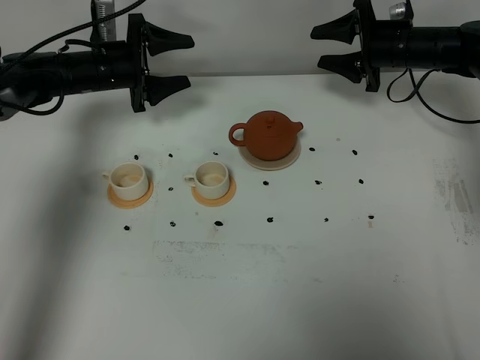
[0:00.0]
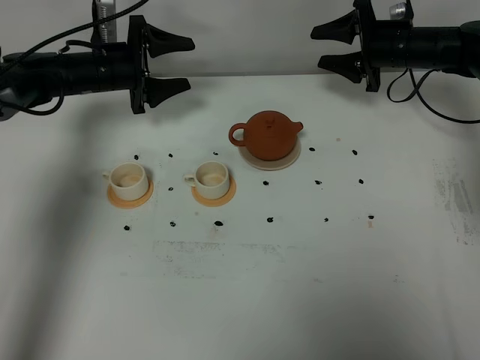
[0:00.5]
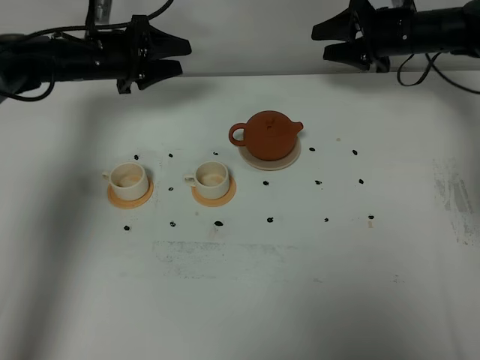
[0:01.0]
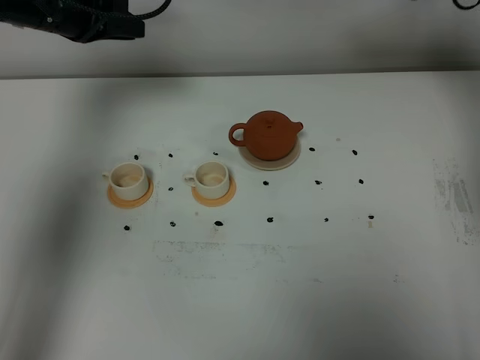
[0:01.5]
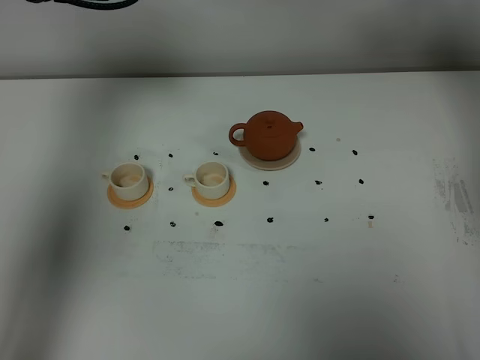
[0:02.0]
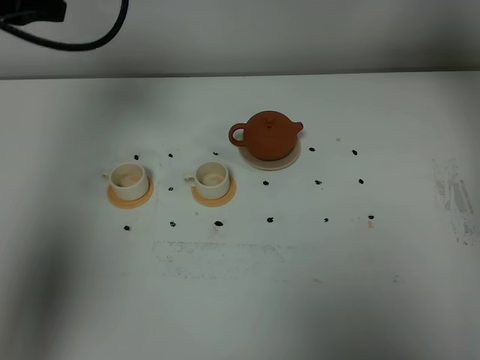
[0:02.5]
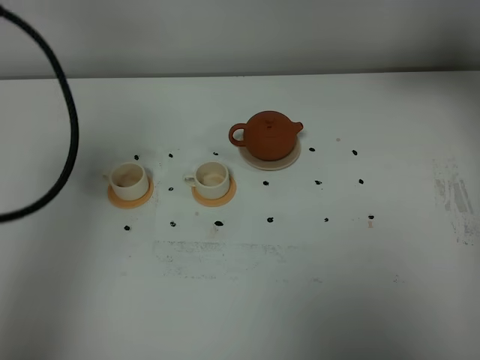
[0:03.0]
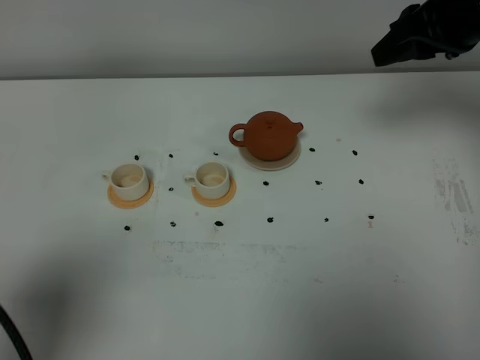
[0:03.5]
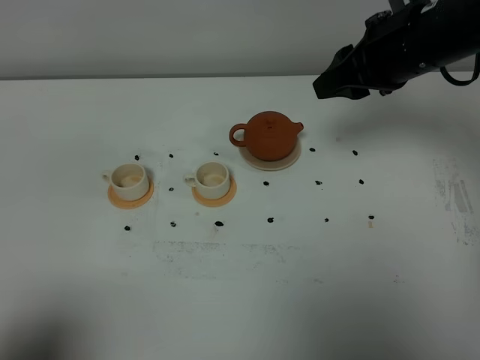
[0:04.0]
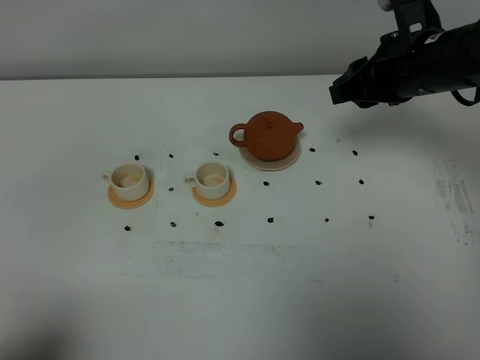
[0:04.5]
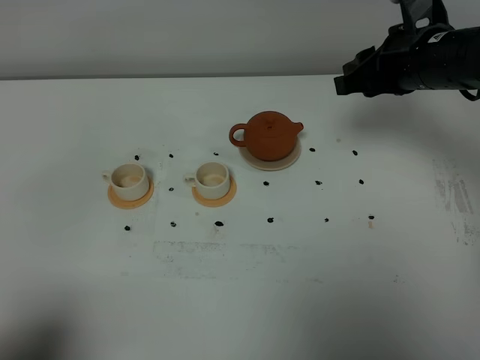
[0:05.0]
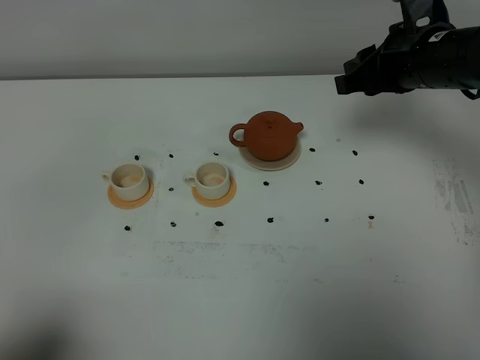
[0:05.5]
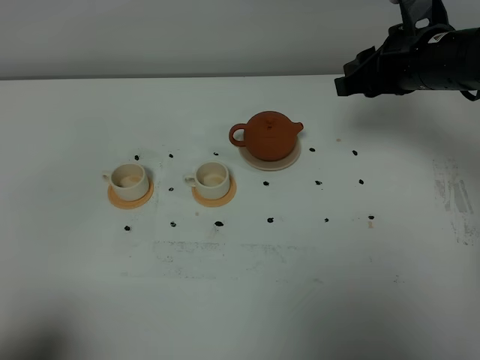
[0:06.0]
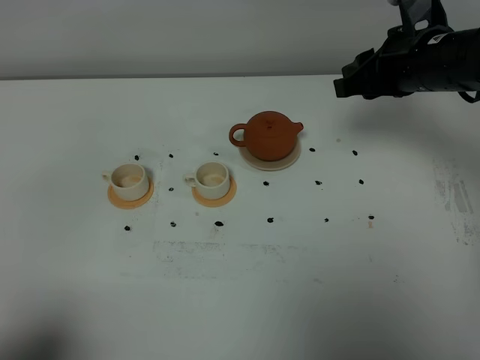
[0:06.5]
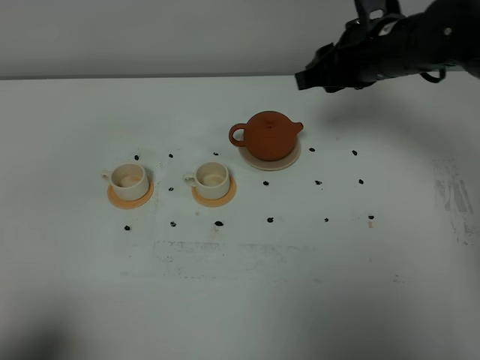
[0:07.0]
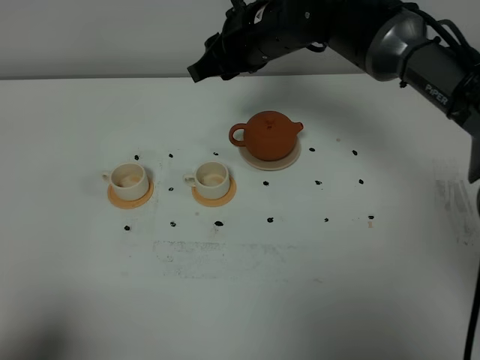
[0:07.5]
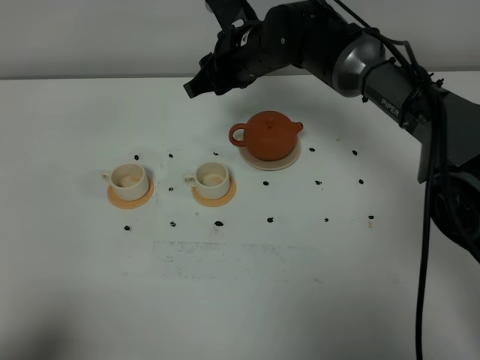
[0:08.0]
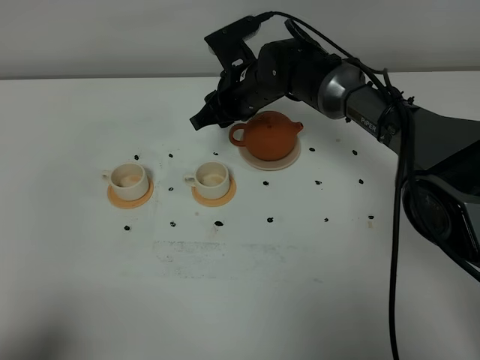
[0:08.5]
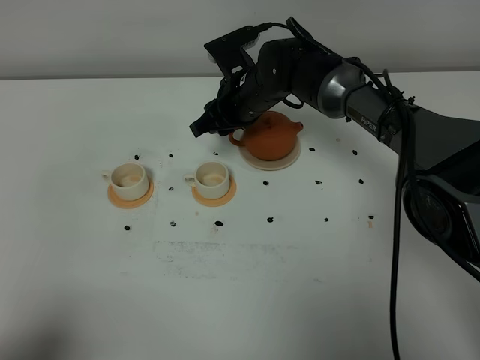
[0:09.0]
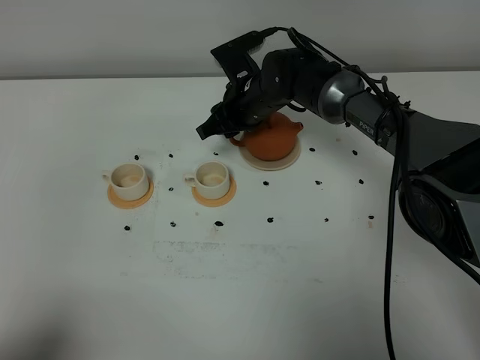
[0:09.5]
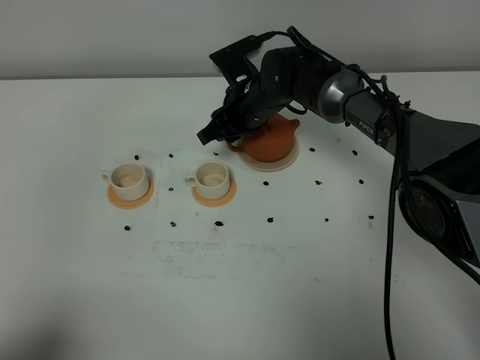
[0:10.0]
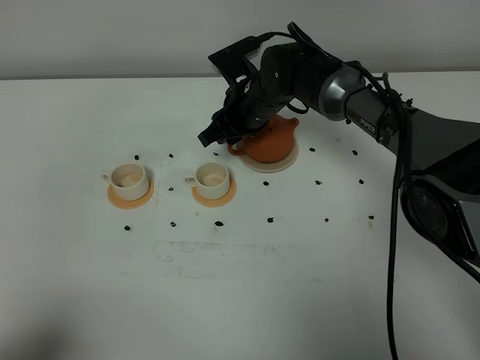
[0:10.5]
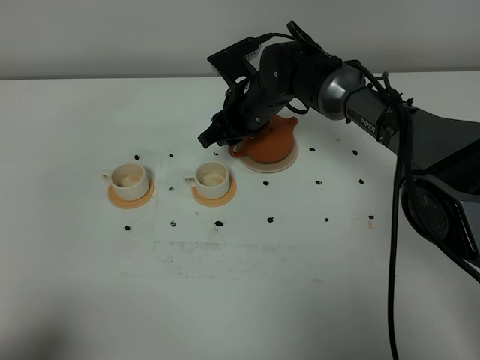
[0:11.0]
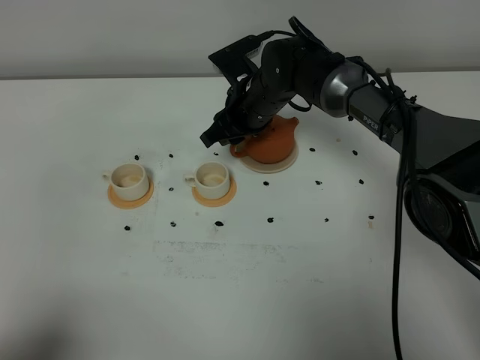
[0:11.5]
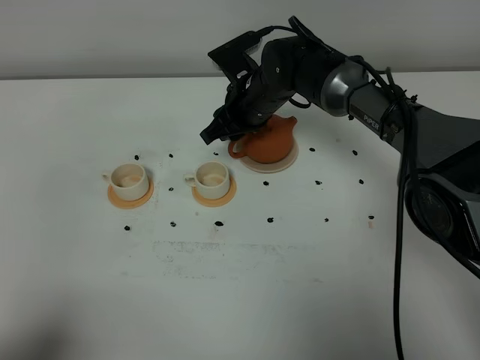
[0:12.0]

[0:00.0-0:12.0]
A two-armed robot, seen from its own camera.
Task of the whole recording: grasp the brown teapot and pour the tea into the two white teacups one by one, put the brown teapot back in its original place.
0:00.0 to 0:02.0: Both grippers travel together upward, about 20 cm. The left gripper closes up.
0:02.0 to 0:04.0: The left gripper is displaced backward by roughly 40 cm; the right gripper moves backward and to the left, roughly 15 cm.
0:06.0 to 0:08.0: The right gripper heads to the left and forward, covering about 20 cm.
0:08.0 to 0:10.0: The right gripper travels downward by about 10 cm.
0:10.0 to 0:12.0: The grippers make only small movements.

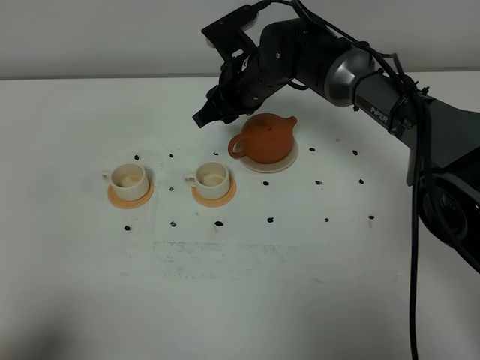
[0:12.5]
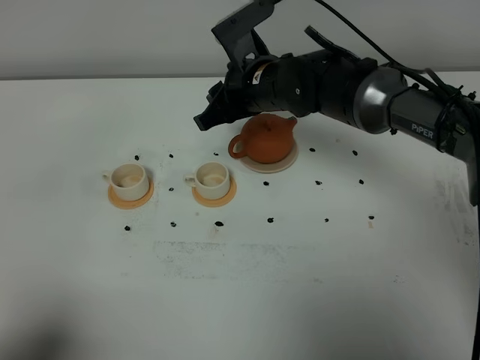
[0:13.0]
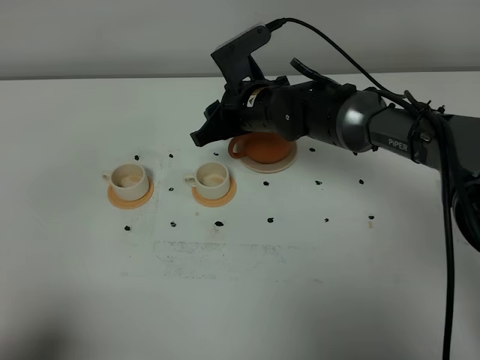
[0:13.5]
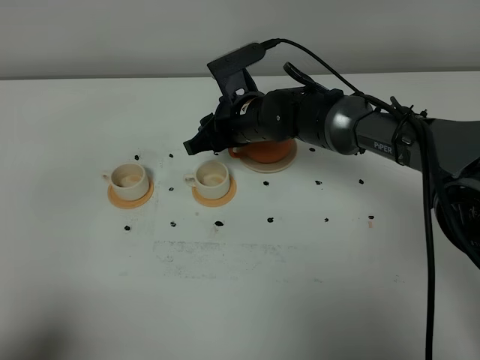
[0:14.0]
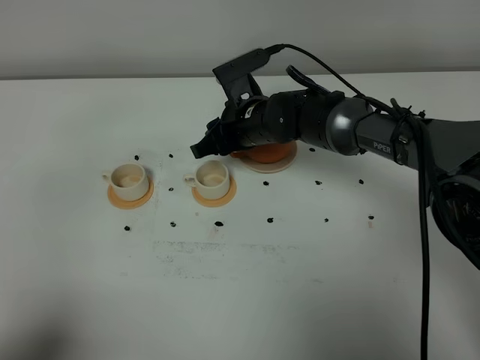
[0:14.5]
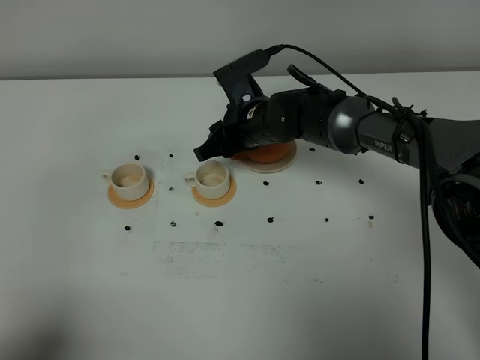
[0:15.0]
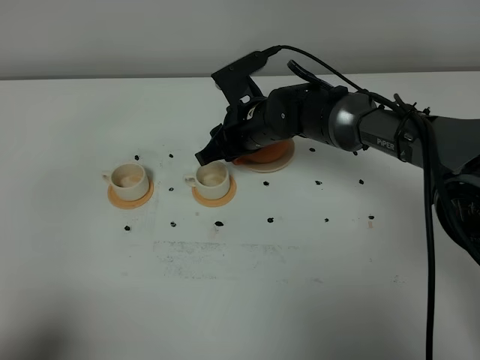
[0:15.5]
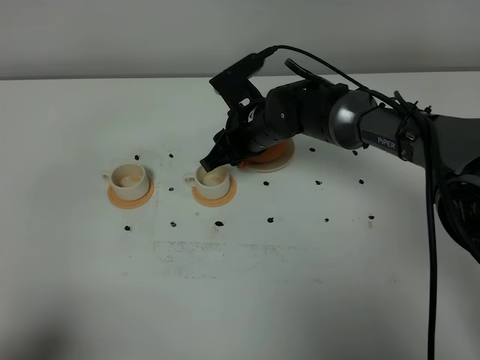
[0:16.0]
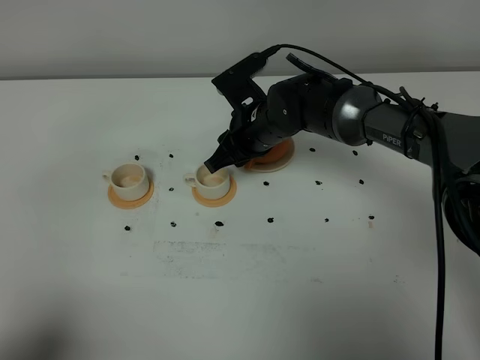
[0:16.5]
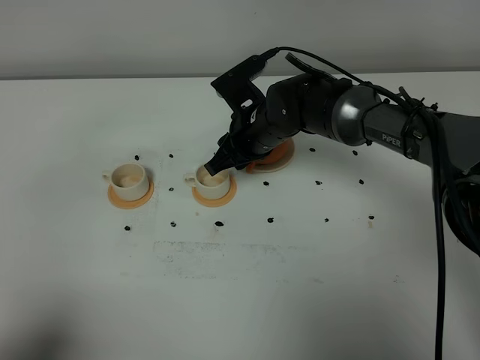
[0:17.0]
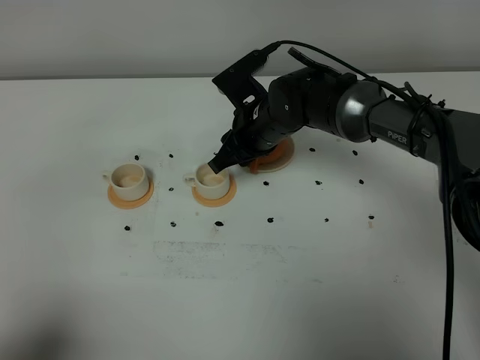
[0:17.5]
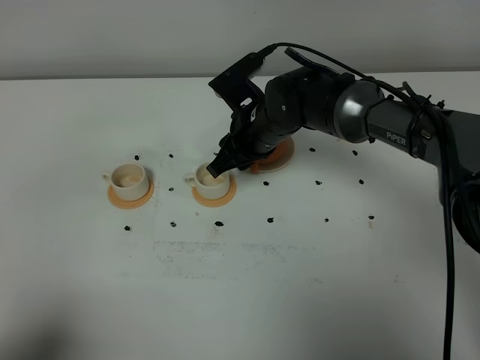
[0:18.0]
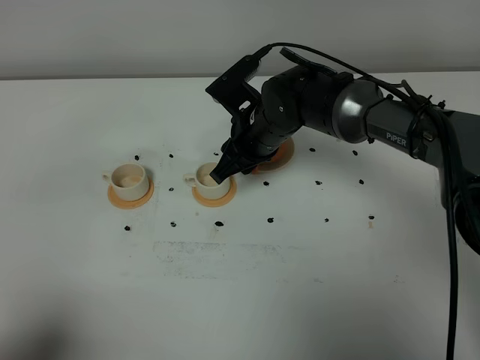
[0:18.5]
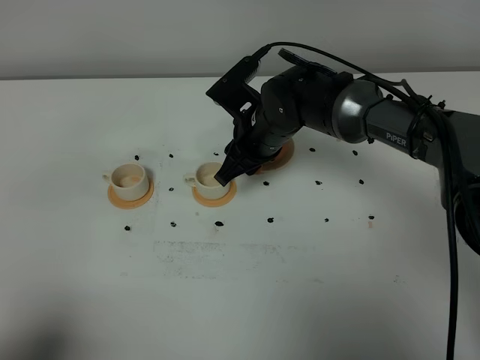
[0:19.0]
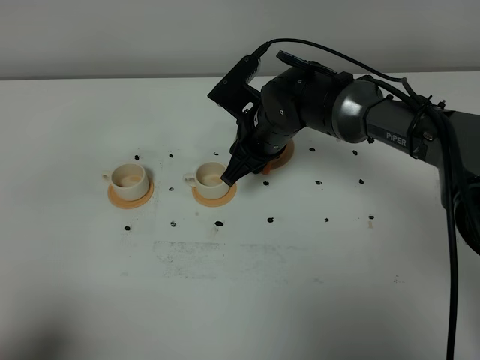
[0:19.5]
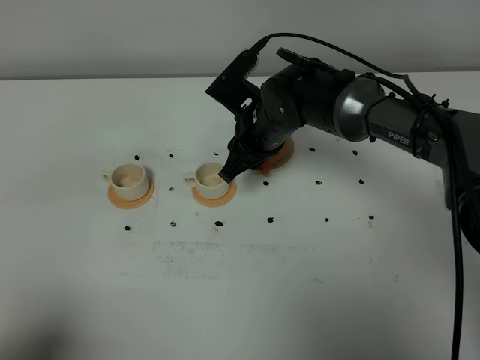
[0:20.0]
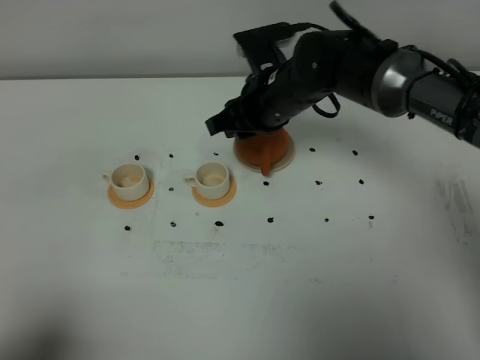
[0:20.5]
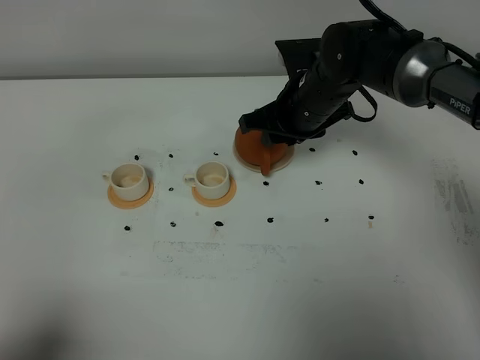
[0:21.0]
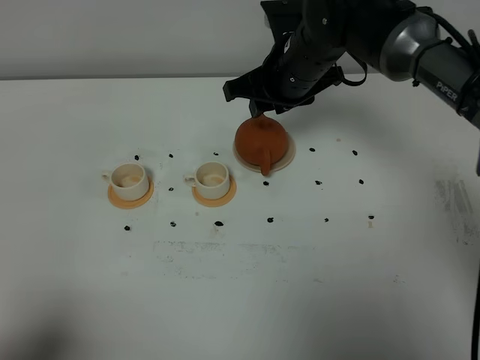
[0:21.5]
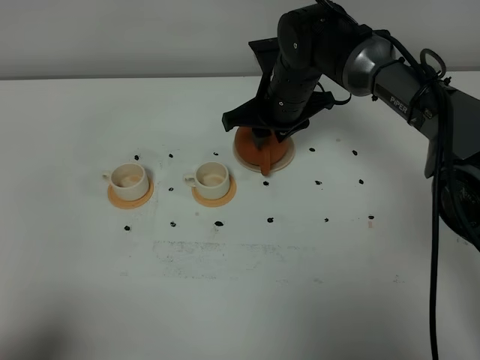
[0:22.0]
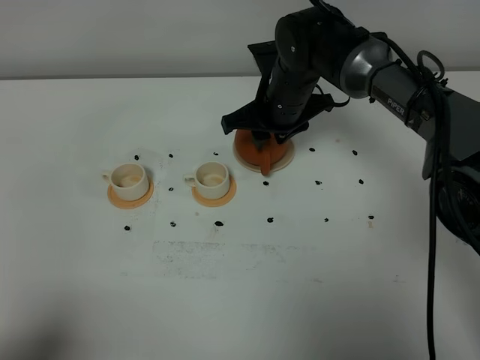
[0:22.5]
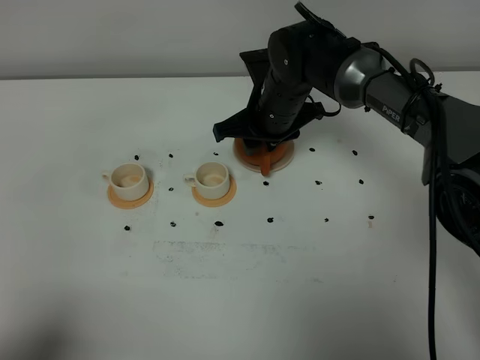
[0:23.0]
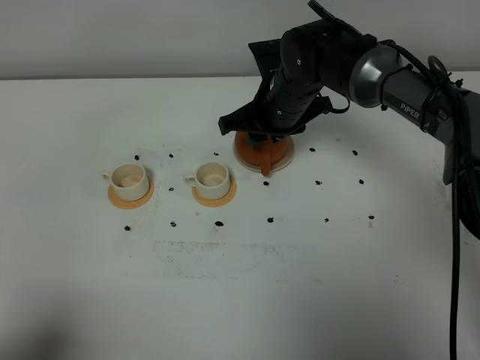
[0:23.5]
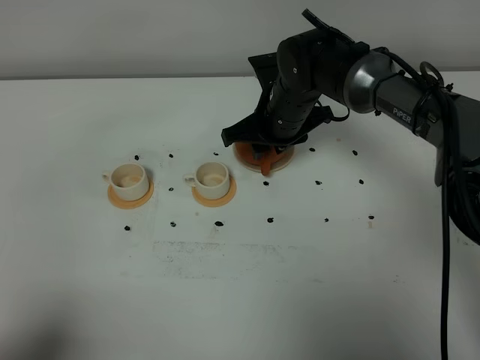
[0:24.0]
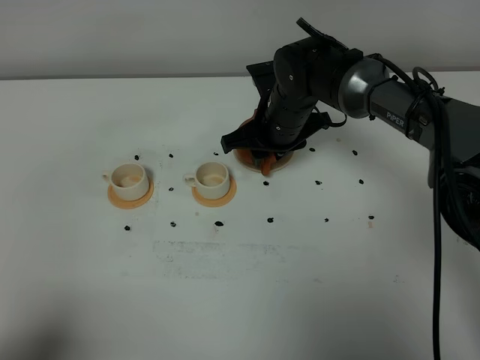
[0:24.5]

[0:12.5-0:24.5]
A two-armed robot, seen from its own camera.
Task of the whole recording: grasp the brown teapot and pour the tea into the two white teacups one by one, put the brown teapot back in its original place.
0:12.5 to 0:14.5: The right gripper heads downward, covering approximately 5 cm.
0:14.5 to 0:16.5: The grippers stay close to where they were, moving slightly.
0:16.5 to 0:18.5: The grippers stay close to where they were, moving slightly.
0:18.5 to 0:20.5: The right gripper moves approximately 5 cm.
0:22.5 to 0:24.5: The grippers stay close to where they were, moving slightly.

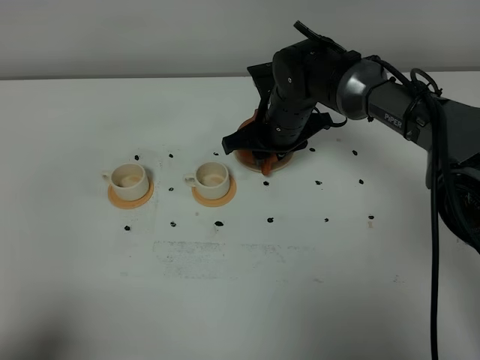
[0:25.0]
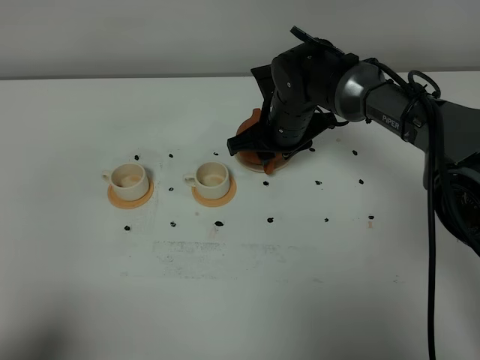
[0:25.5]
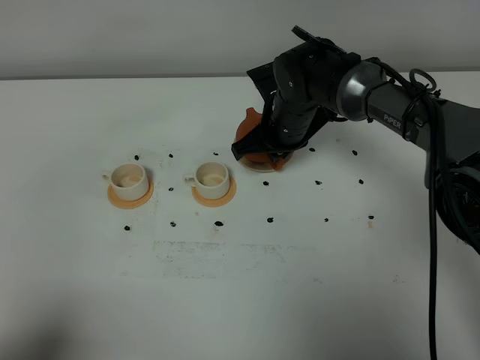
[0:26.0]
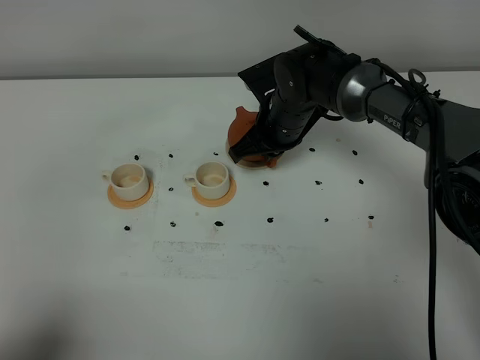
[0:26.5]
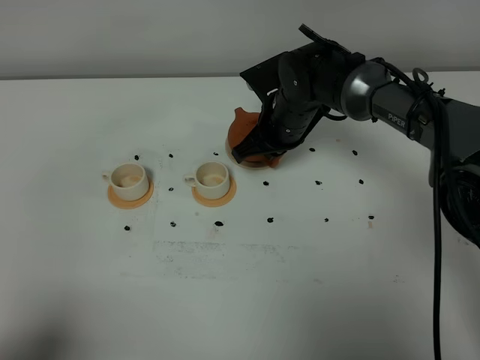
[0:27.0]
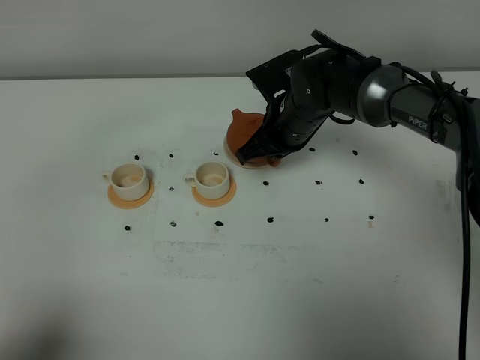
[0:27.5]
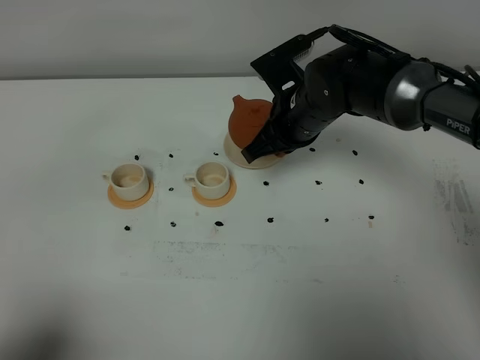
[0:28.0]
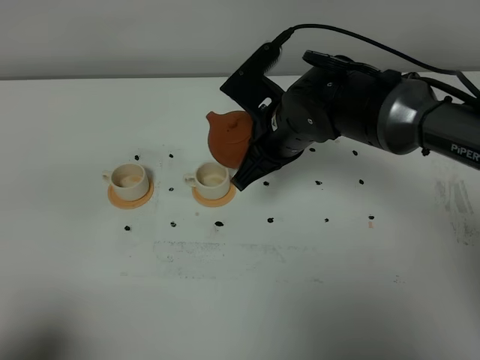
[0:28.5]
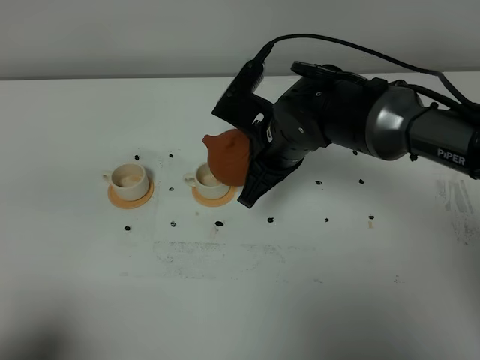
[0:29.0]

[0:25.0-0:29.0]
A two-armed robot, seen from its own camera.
Task of the whole recording: grasp the brown teapot and pour the tea into the two white teacups one by one, put the brown teapot back in its original place.
Step, 0:25.0 to 0:27.5: Pick up the teapot with the right gripper.
0:25.0 to 0:27.0: The right gripper closes.
0:27.0 to 0:29.0: The right gripper is displaced backward by approximately 10 cm.
